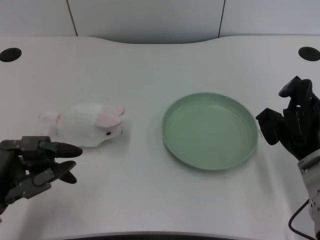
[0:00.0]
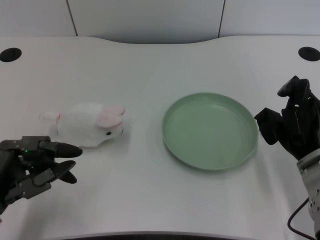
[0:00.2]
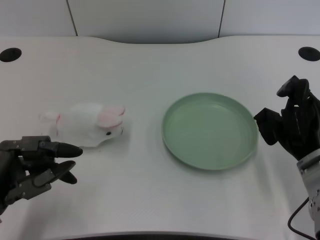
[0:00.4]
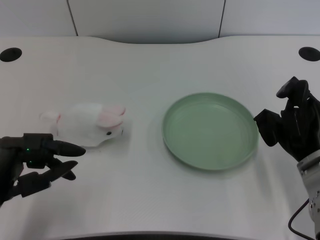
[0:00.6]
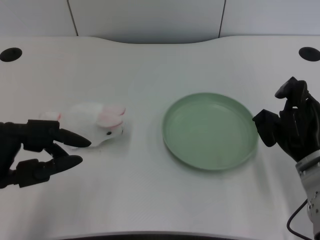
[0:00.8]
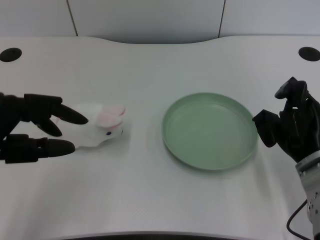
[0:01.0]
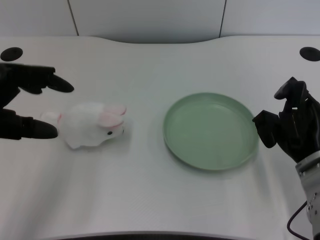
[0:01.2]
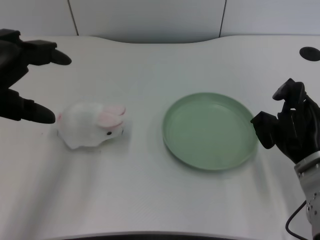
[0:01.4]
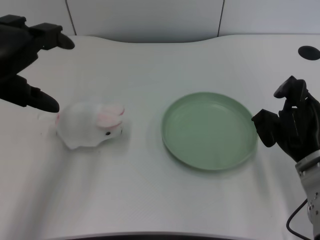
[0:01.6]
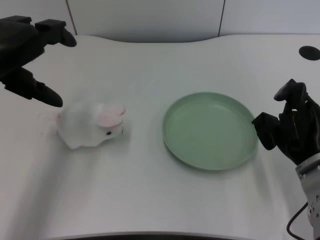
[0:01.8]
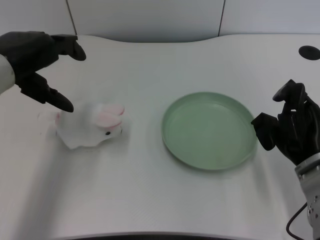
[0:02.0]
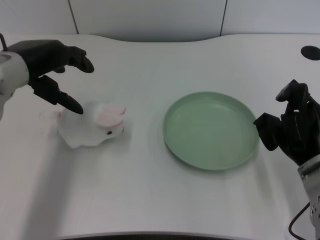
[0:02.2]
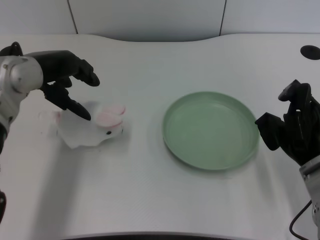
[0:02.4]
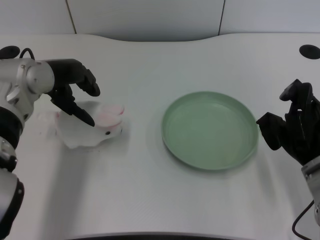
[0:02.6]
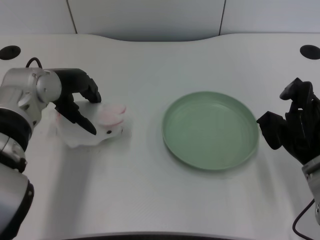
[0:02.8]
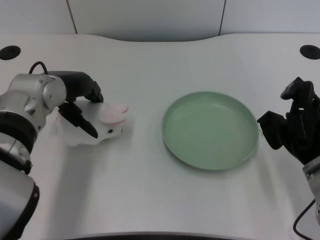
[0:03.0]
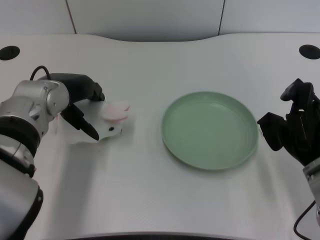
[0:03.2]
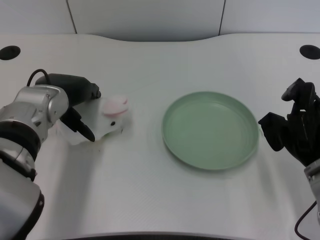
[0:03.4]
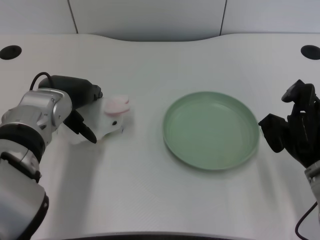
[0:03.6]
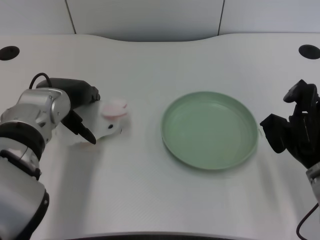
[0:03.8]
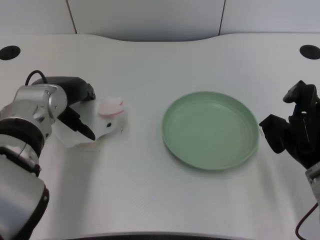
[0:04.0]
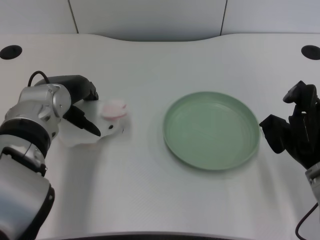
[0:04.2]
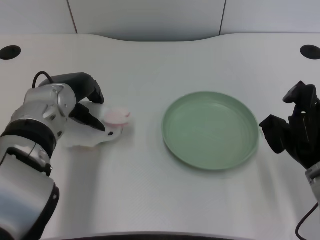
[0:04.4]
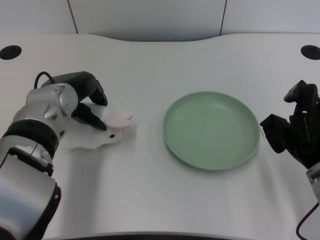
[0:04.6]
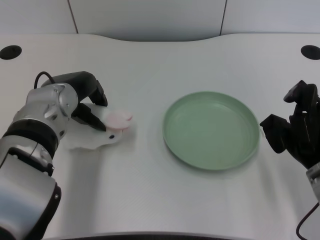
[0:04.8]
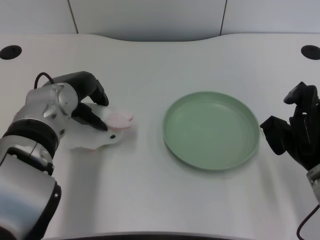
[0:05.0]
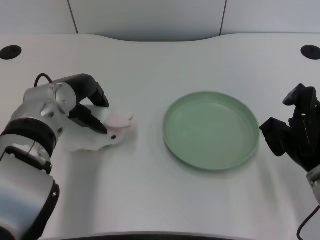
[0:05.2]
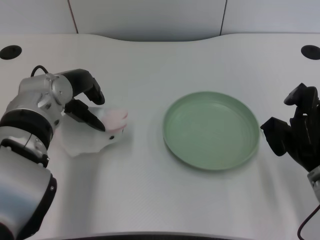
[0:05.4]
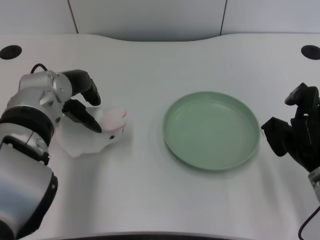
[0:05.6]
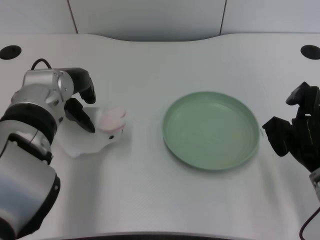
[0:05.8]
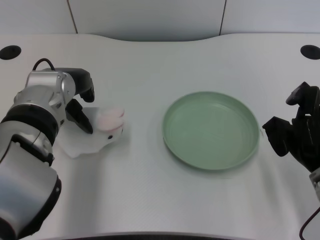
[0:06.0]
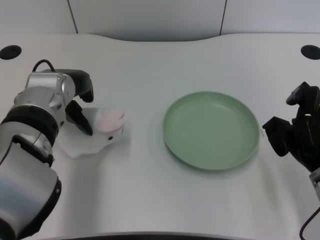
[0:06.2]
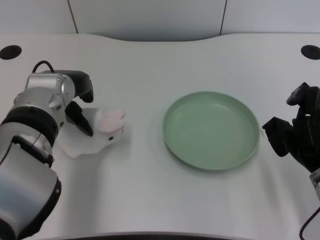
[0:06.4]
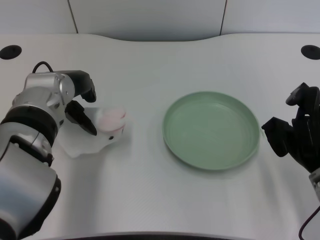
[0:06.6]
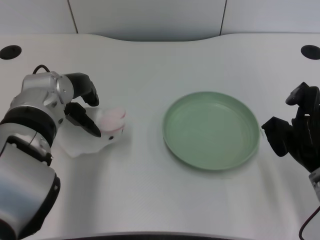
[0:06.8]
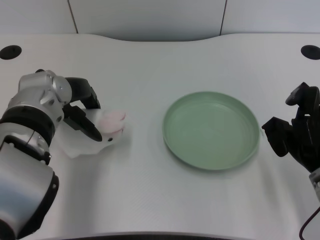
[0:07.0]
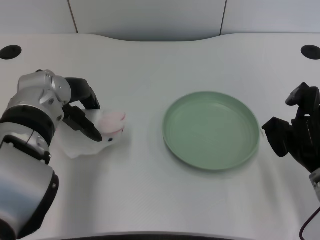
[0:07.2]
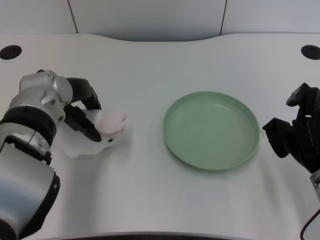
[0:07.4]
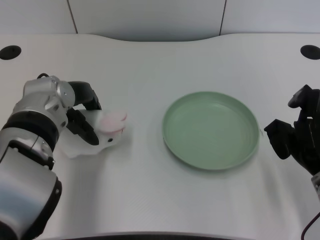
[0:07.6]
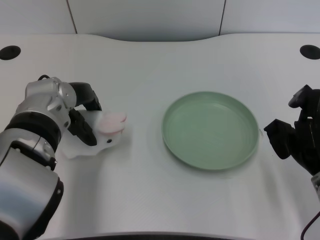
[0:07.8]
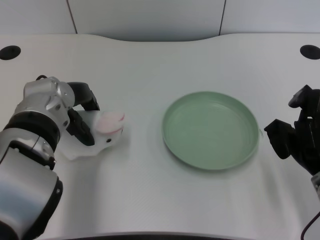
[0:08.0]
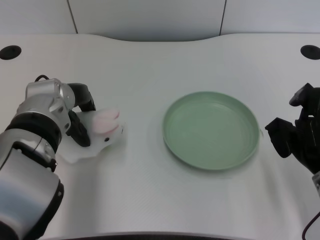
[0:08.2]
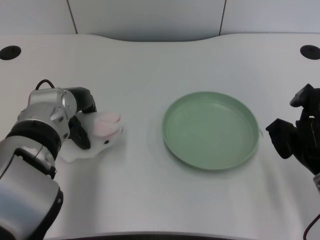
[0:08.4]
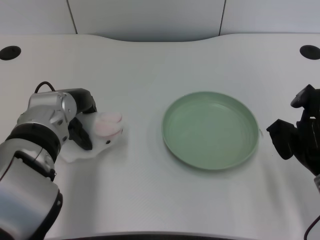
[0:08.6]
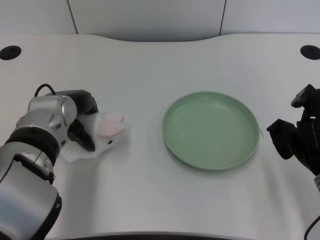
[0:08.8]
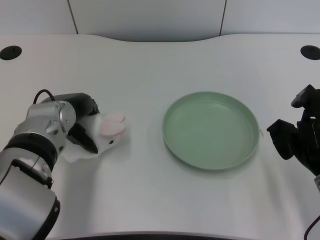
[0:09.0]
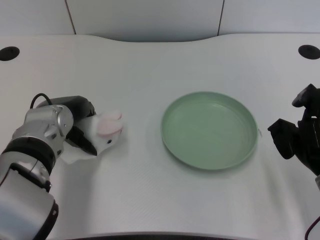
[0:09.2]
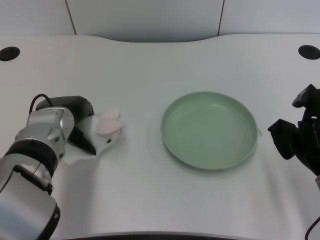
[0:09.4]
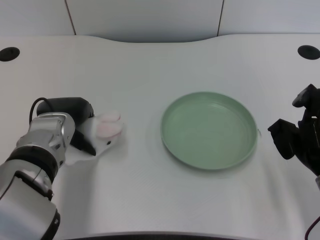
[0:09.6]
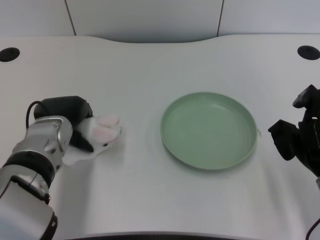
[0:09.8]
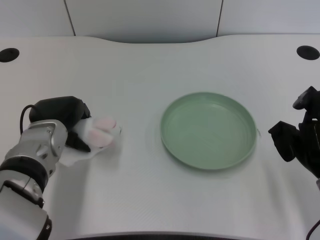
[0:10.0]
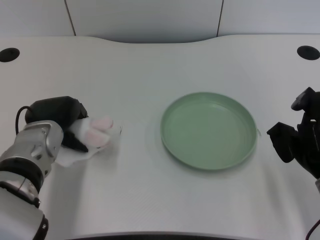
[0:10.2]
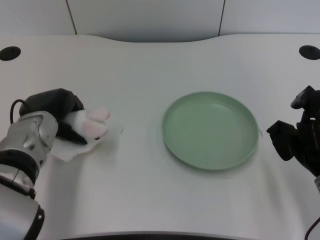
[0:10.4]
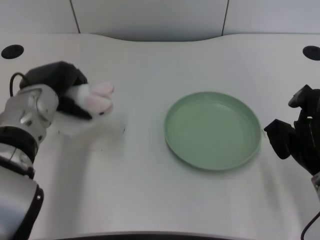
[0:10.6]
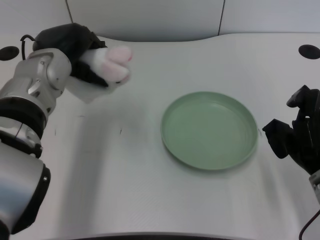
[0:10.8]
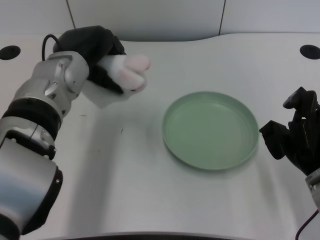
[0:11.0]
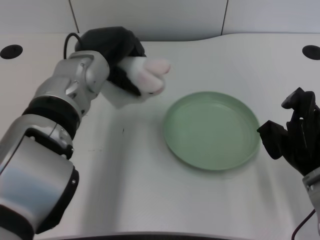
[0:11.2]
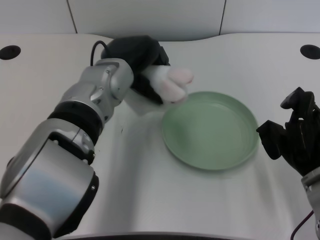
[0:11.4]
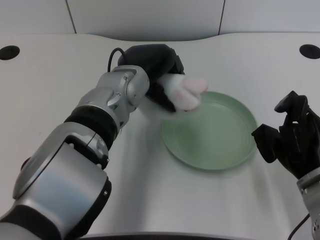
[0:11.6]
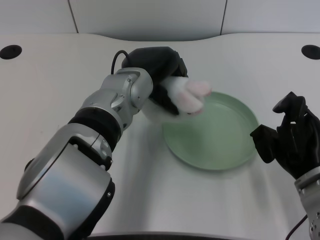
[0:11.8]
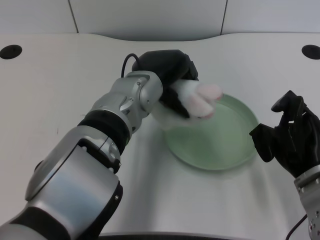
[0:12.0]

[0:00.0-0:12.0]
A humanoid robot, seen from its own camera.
Task of the whole recording: pick up the rabbit doll from the table and place it on the plate.
Step, 0:00.0 to 0:10.4: Grasp the rabbit doll with the left gripper.
0:01.6 to 0:03.0: The left hand heads forward, to the right and downward, covering about 15 cm.
0:03.0 to 0:07.6: The hands move only a little.
0:07.6 to 0:09.0: The hands make only small movements.
0:09.0 to 0:10.4: The hands move only a little.
0:10.4 to 0:12.0: The left hand moves to the right and upward, some 15 cm.

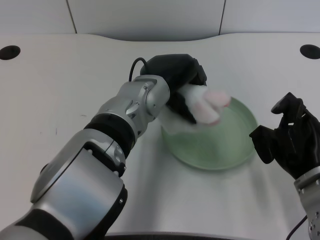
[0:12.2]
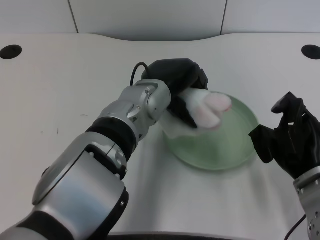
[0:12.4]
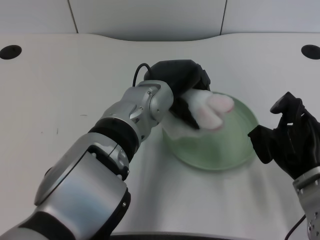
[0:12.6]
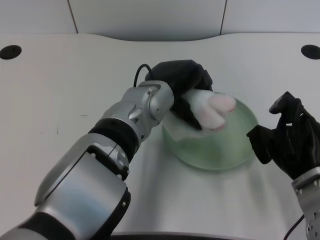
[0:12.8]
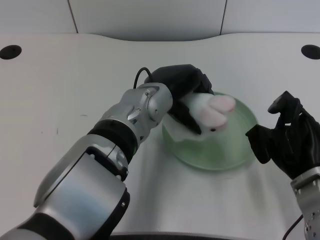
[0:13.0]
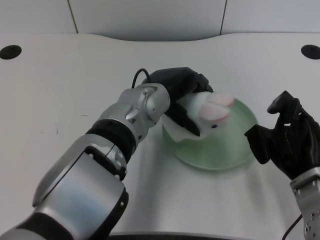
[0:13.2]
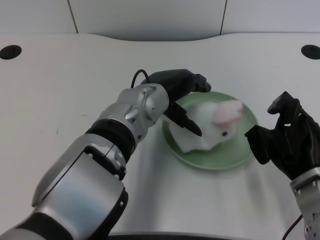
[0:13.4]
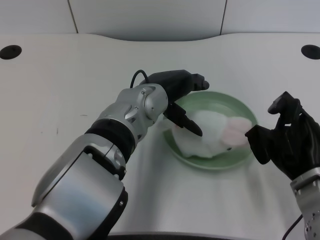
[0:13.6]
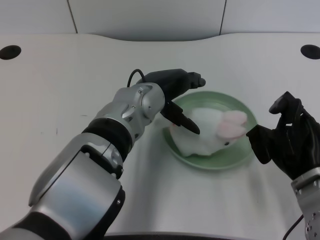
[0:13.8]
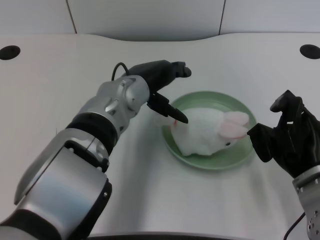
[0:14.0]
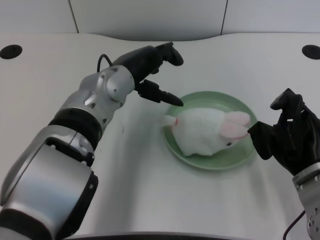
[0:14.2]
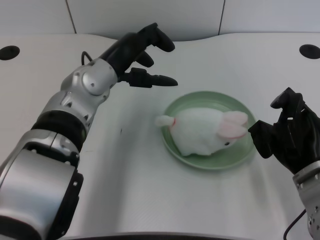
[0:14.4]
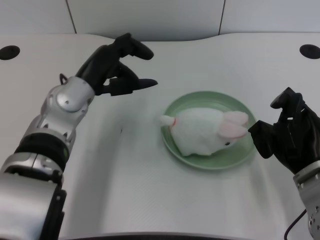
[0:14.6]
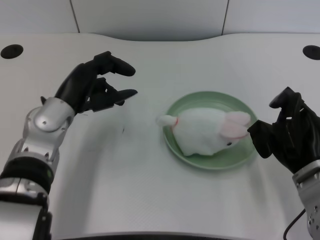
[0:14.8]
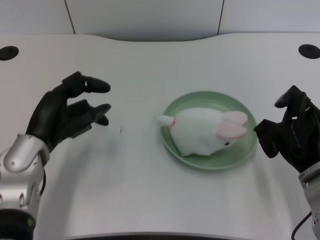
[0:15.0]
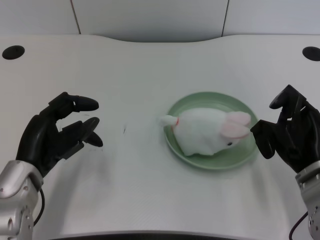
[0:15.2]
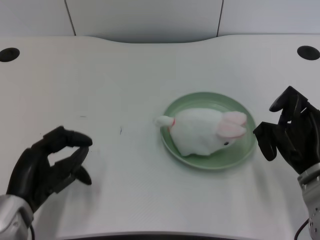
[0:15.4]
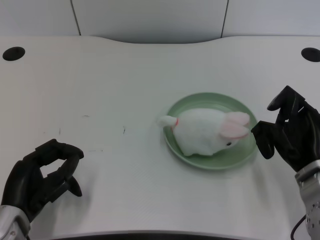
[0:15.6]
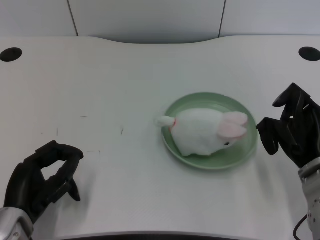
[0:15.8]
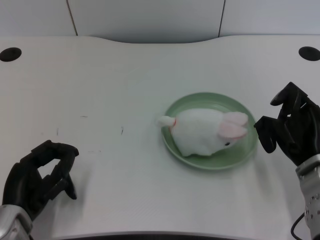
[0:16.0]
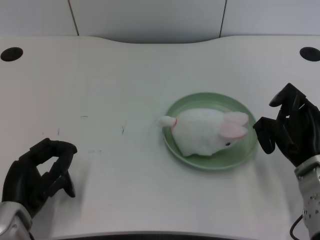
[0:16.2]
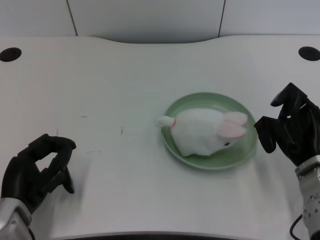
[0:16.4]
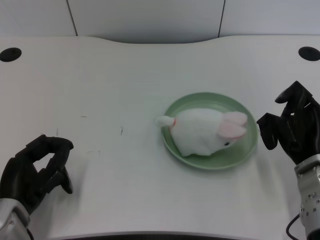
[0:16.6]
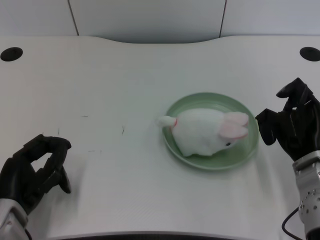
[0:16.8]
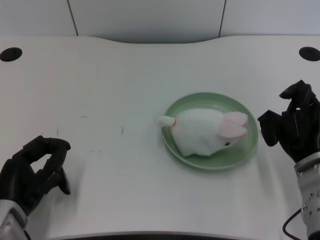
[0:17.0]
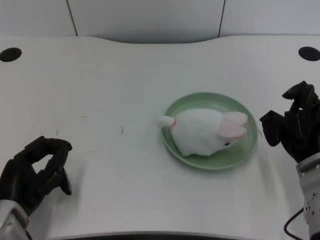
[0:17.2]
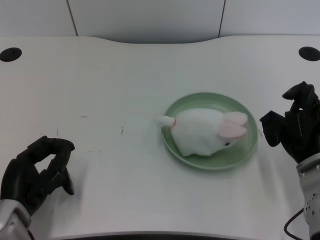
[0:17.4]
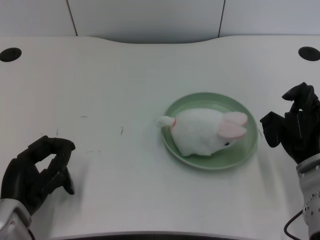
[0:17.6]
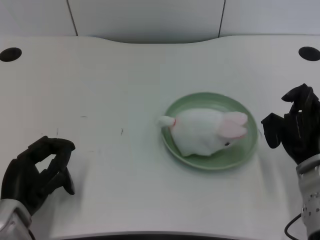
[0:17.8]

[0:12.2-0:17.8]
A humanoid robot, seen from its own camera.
Task of the whole recording: pick up the rabbit doll from the table and place it on the plate.
Step, 0:12.2 to 0:13.8: Place the rabbit doll into the plate with the left gripper.
0:12.2 to 0:13.6: The hands stay close to where they were, moving slightly.
0:13.6 to 0:15.0: The left hand heads to the left, covering roughly 20 cm.
0:15.0 to 0:16.4: The left hand travels backward by approximately 10 cm.
0:16.4 to 0:17.8: The hands move only a little.

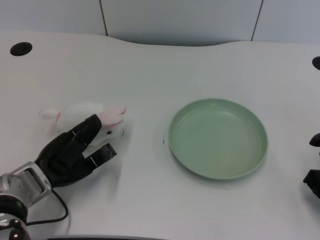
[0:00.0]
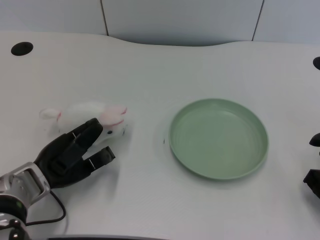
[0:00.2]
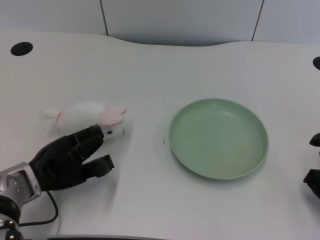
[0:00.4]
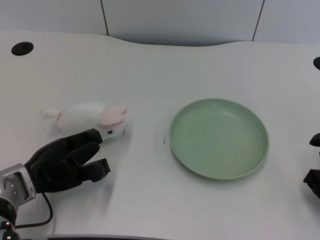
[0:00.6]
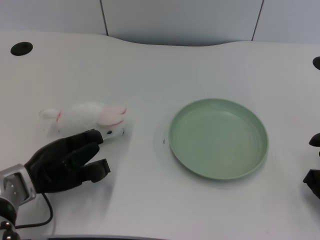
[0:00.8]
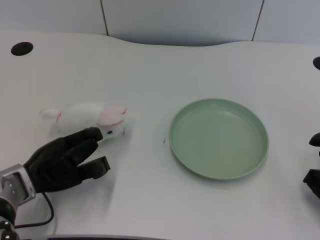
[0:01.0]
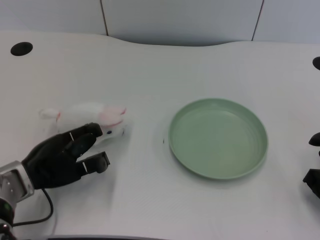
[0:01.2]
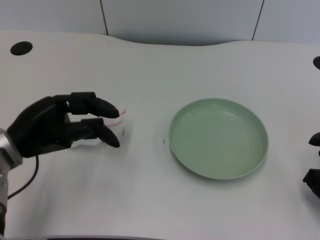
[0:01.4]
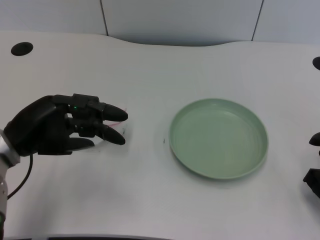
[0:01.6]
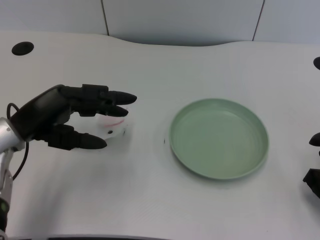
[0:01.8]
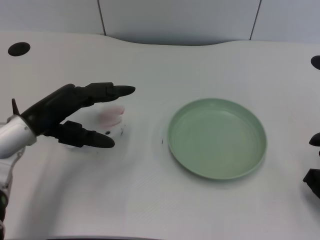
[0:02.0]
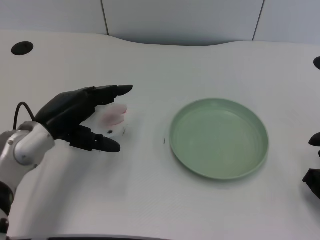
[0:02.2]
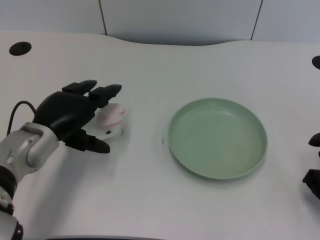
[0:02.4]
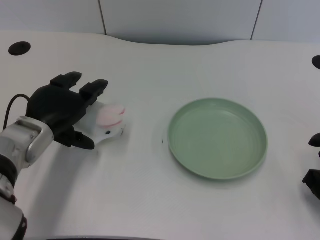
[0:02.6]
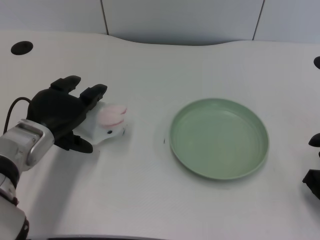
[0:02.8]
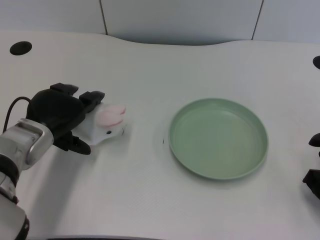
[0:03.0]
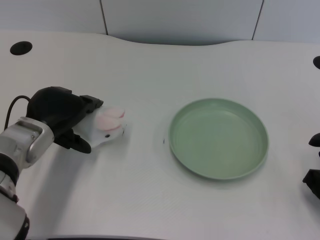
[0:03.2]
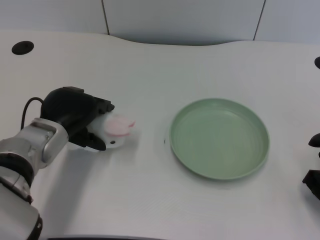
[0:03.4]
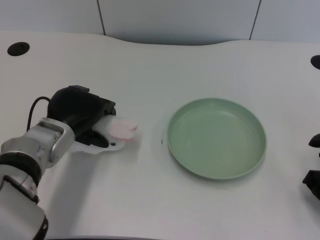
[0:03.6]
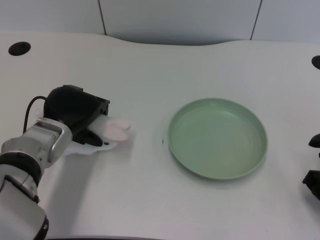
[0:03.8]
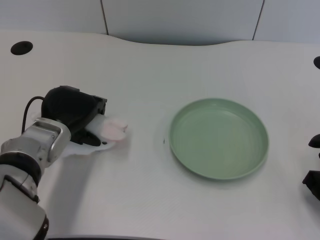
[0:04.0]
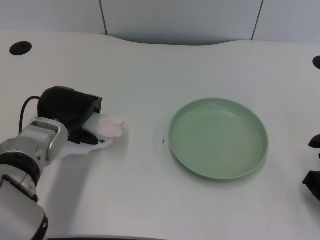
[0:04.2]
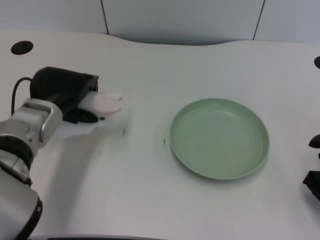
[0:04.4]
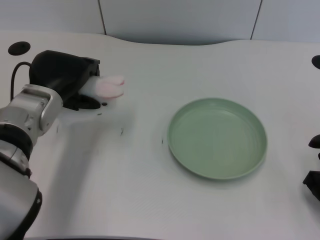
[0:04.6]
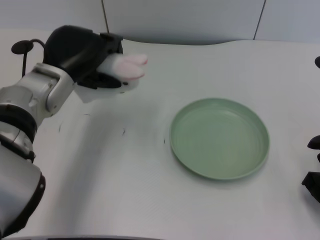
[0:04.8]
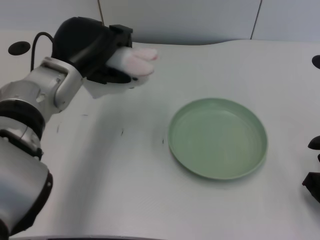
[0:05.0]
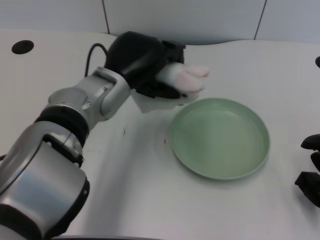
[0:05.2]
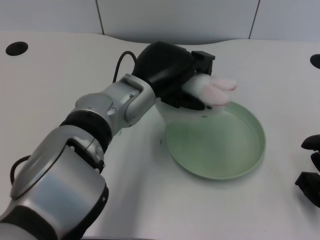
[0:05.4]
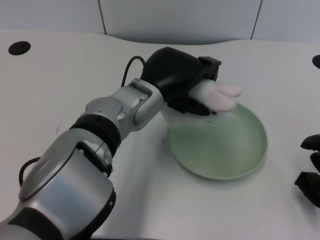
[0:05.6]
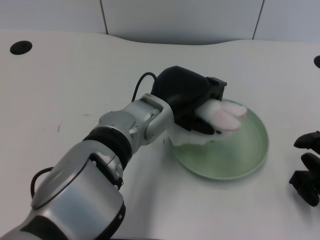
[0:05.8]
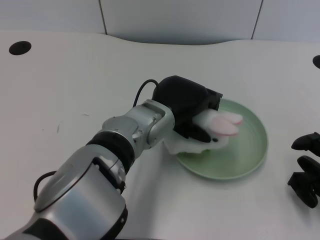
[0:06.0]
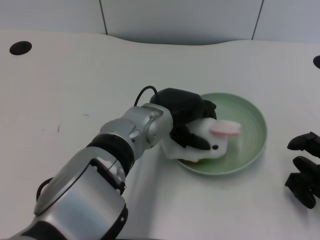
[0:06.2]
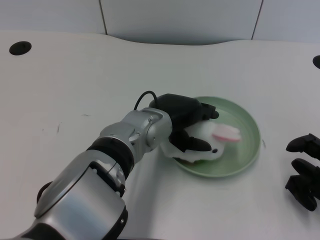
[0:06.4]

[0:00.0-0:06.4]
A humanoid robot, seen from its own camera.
Task of the whole recording: pick up the rabbit doll from the table and place it on the plate.
Step, 0:01.0 to 0:04.4: Grasp the rabbit doll with the left gripper.
0:01.6 to 0:03.2: The left hand moves approximately 5 cm.
0:03.2 to 0:04.8: The left hand travels upward by approximately 5 cm.
0:04.8 to 0:06.4: The left hand goes about 15 cm to the right.
